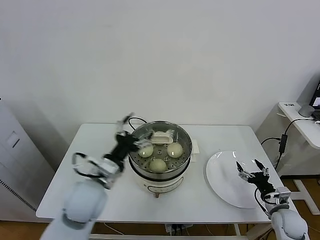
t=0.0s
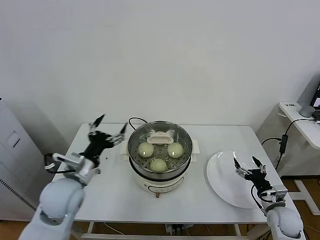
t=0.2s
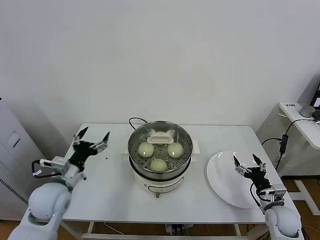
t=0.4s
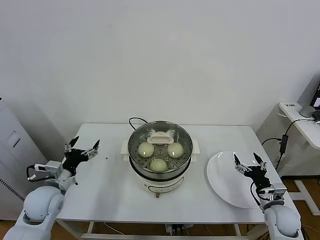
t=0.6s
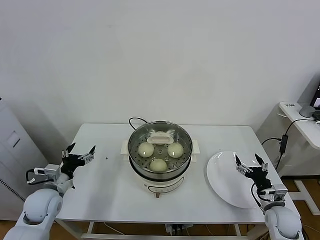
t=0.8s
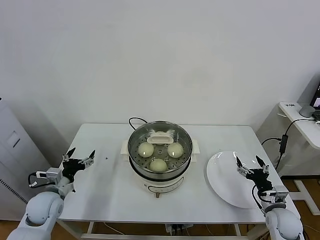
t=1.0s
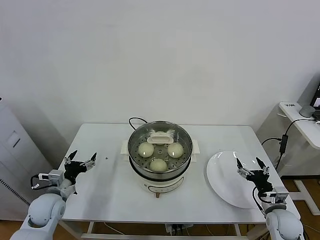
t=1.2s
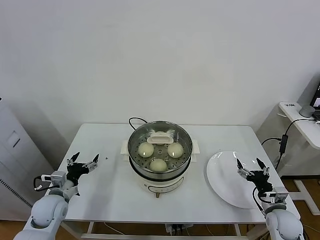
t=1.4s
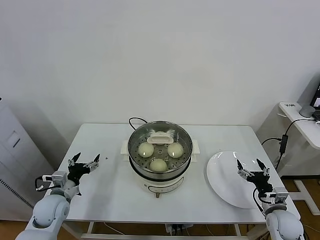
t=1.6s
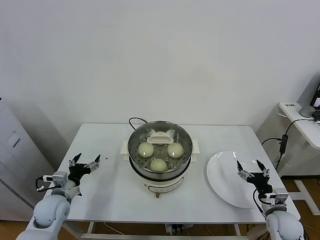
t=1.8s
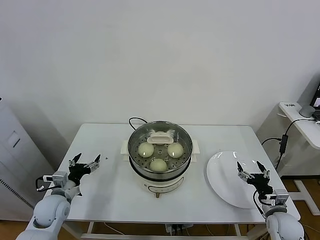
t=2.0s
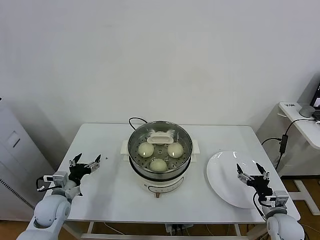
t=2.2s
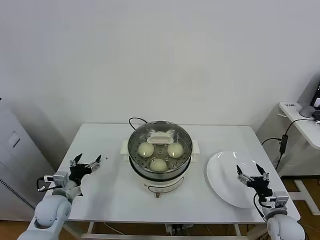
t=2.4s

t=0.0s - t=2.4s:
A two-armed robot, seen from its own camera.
Task of the whole recording: take steamed baozi put them in steamer.
t=0.0s - t=1.2s: The left gripper travels to the left and downward by some 25 cm.
t=1.2s - t=2.4s: The grippers stay close to where they were, moving slightly.
